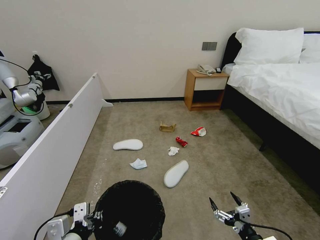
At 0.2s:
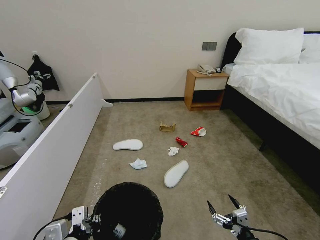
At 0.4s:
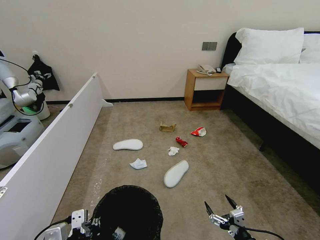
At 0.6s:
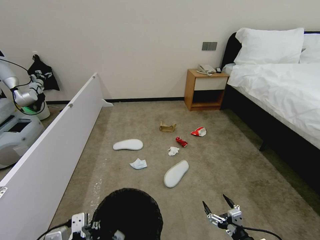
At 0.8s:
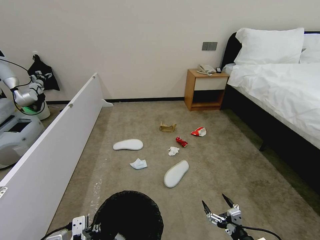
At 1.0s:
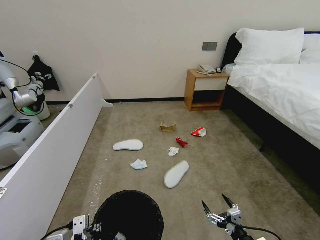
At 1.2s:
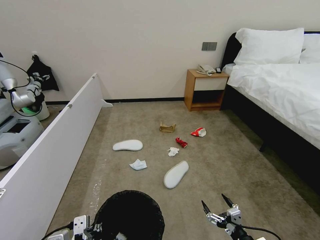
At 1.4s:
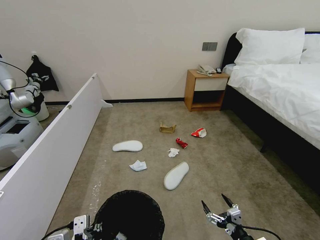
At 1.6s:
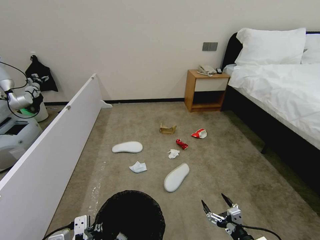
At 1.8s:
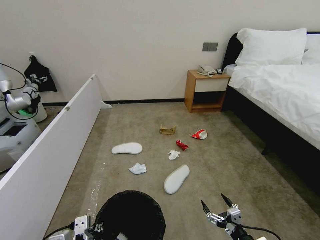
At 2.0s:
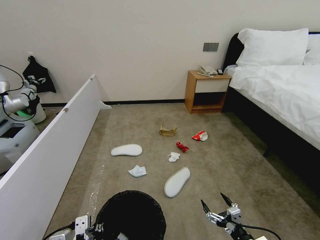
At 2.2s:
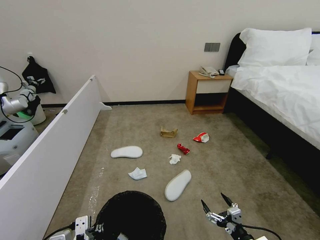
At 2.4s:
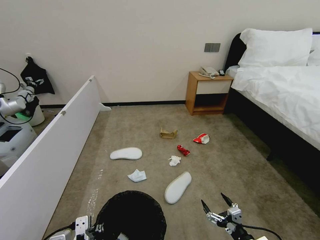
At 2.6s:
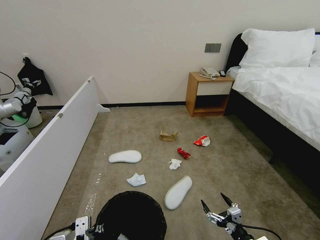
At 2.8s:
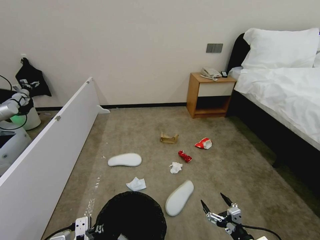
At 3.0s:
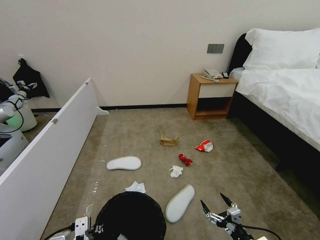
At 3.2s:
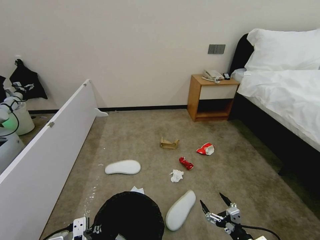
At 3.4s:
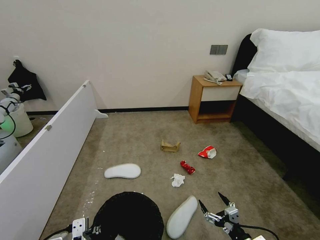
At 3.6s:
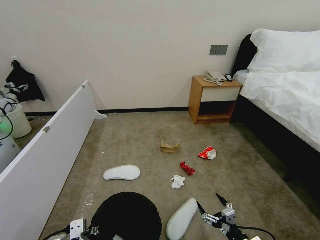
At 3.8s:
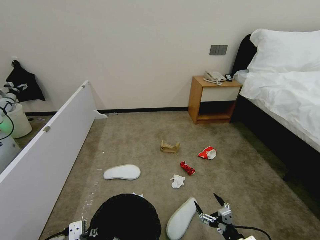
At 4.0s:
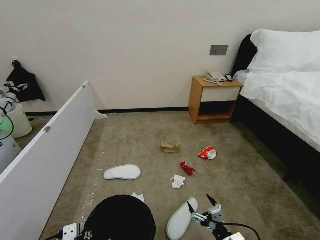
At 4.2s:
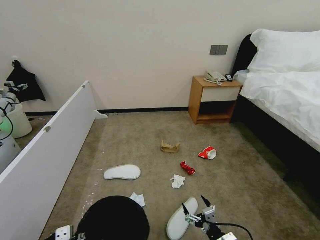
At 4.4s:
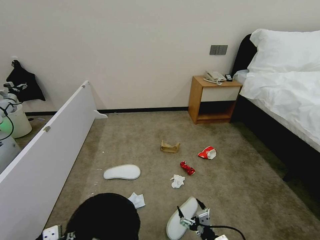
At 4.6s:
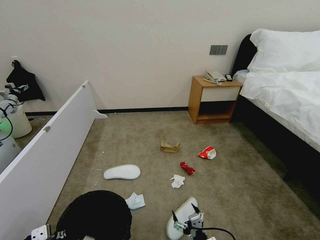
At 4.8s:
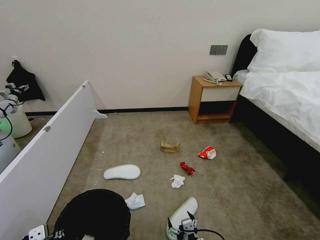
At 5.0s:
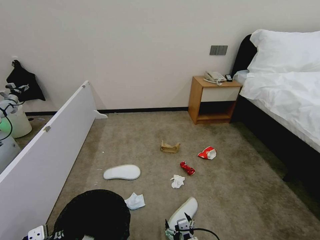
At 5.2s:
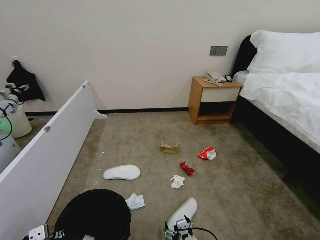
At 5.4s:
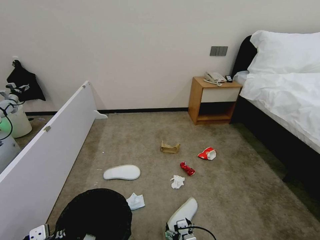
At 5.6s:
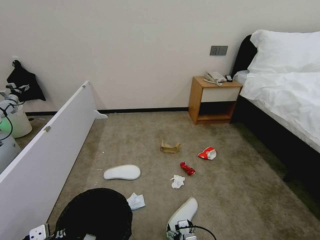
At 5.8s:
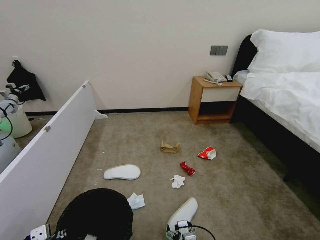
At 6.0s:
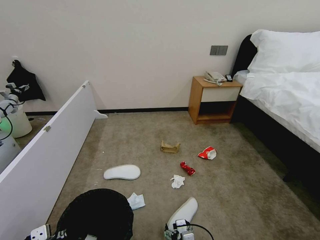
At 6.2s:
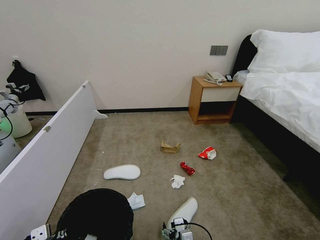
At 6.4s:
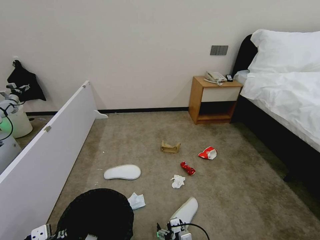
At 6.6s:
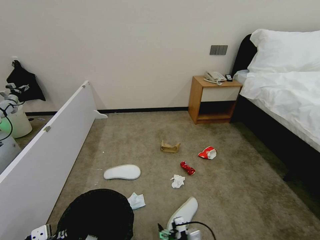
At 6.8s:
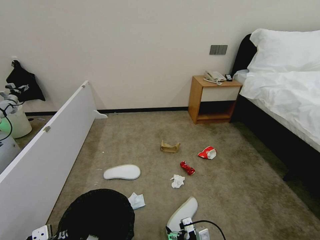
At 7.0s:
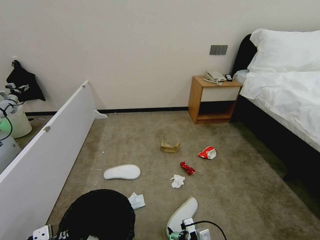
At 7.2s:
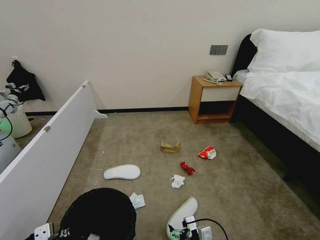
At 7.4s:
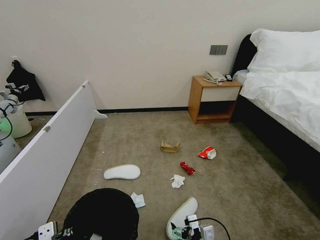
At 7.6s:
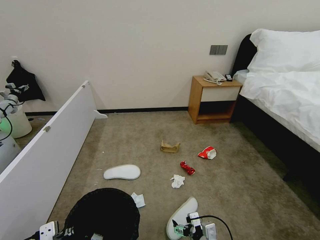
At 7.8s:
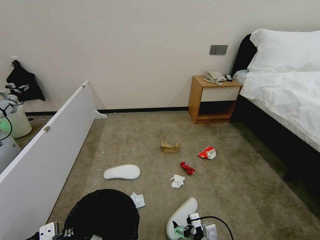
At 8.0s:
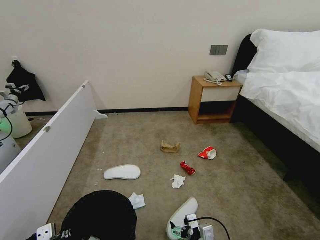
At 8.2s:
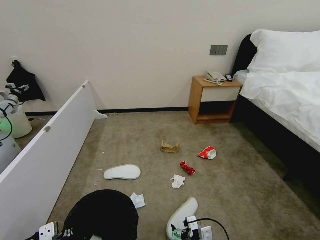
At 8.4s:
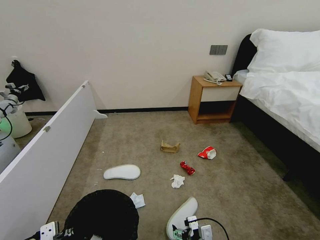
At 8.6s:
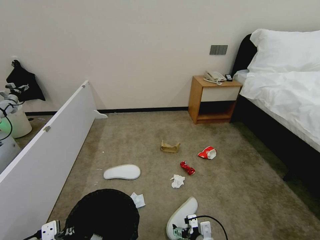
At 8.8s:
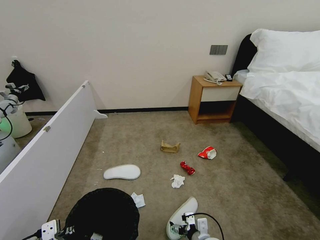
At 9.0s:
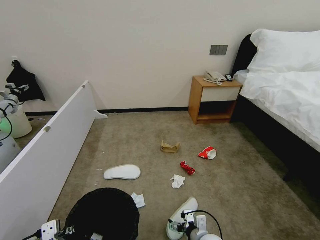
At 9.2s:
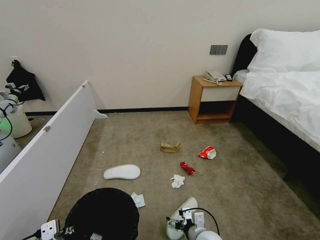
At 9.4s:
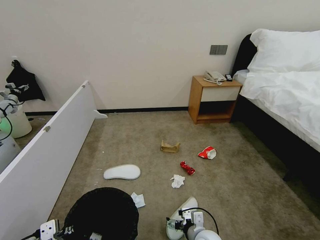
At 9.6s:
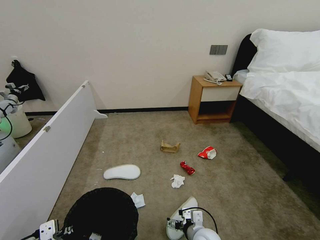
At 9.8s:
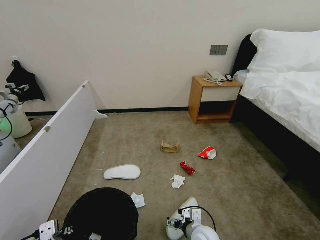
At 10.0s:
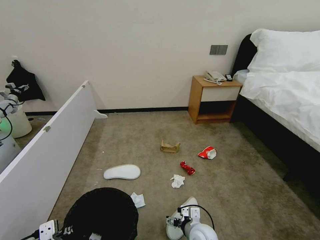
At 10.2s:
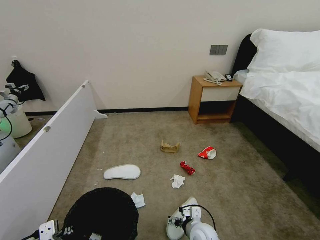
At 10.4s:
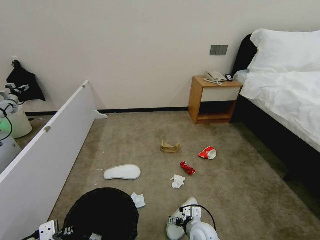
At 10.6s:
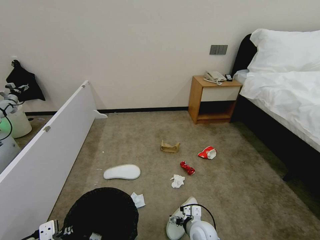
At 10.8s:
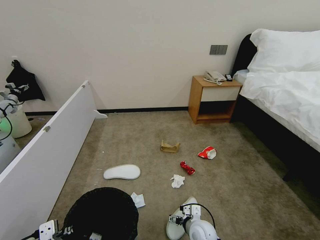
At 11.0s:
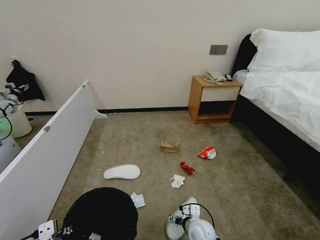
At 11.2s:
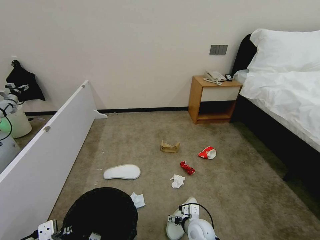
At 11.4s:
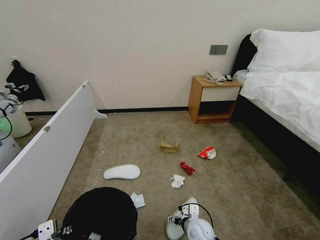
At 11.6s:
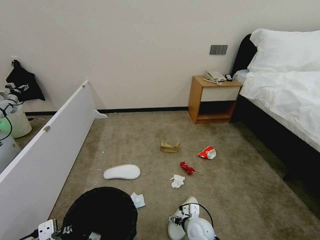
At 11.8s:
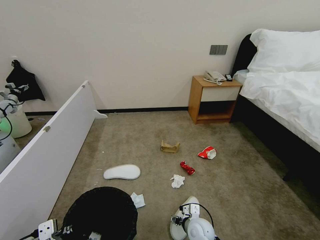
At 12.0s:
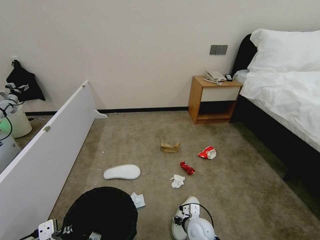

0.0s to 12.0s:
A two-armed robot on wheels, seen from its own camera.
Task of the whole recording: Pick up the trash bin, then pick up the garbage from the floor and place it into the trash bin.
0.0s to 1.6s: There are only small adjustments of the grippers.
1.6s to 3.0s: The two grippers keep their place.
3.0s to 4.4s: The right gripper moves to the left, some 10 cm.
4.4s to 6.0s: The right gripper travels to the left by some 10 cm.
6.0s to 7.6s: The right gripper goes approximately 10 cm to the right and upward.
7.6s to 9.0s: The right gripper changes place by roughly 5 cm.
9.0s to 10.4s: The grippers move only a little.
10.4s to 12.0s: The right gripper closes.

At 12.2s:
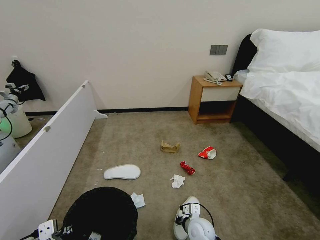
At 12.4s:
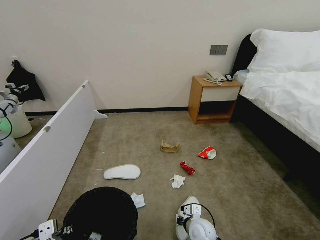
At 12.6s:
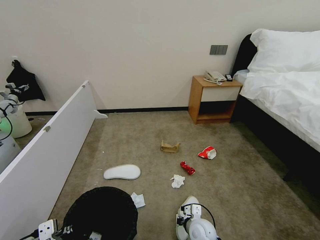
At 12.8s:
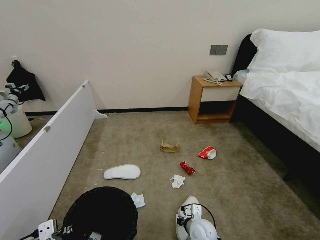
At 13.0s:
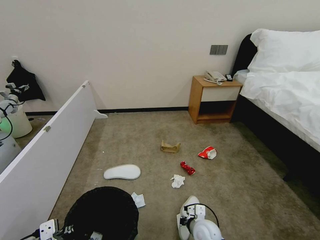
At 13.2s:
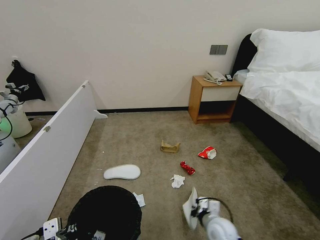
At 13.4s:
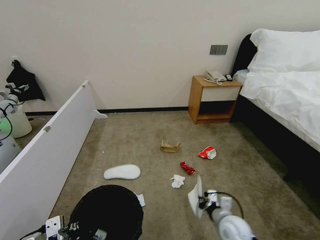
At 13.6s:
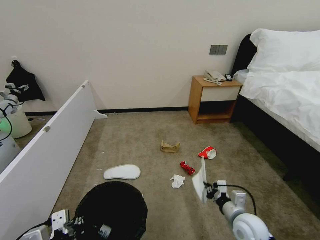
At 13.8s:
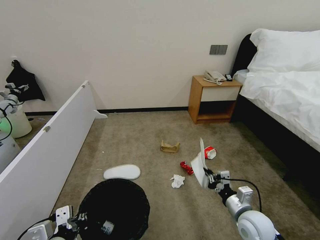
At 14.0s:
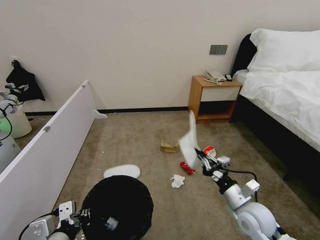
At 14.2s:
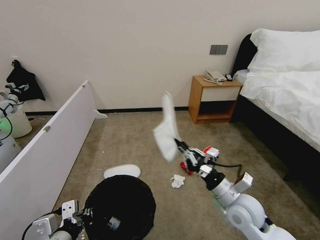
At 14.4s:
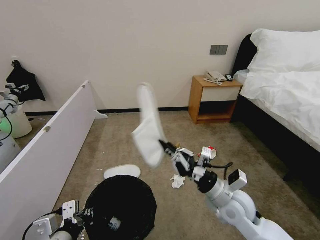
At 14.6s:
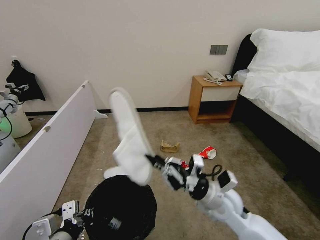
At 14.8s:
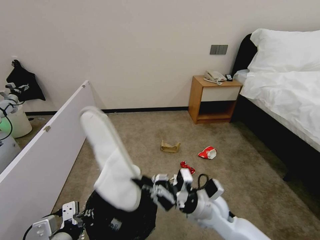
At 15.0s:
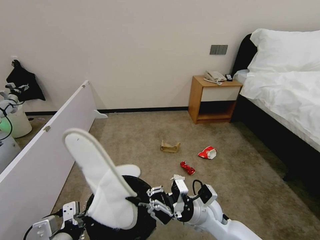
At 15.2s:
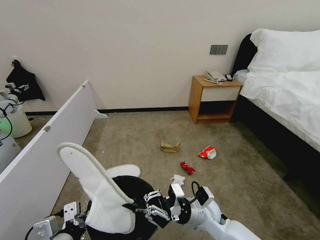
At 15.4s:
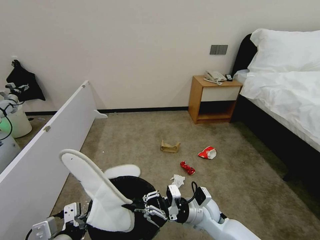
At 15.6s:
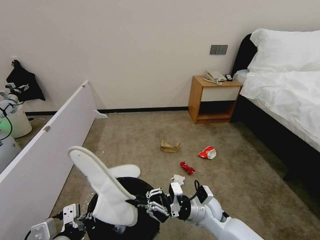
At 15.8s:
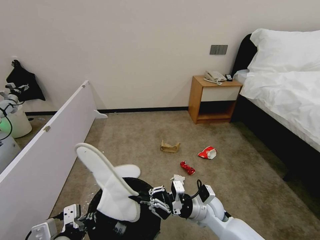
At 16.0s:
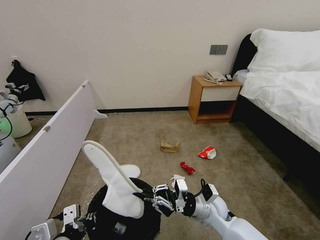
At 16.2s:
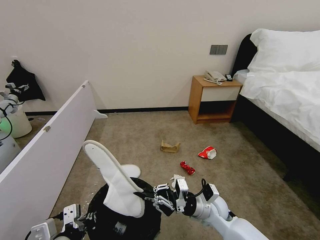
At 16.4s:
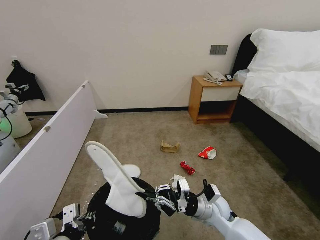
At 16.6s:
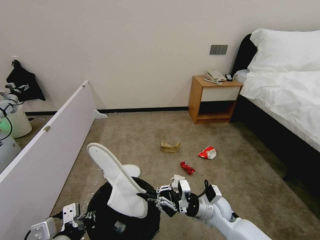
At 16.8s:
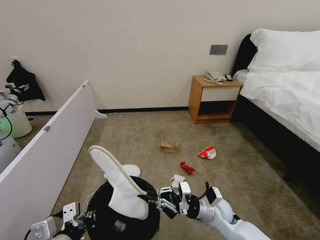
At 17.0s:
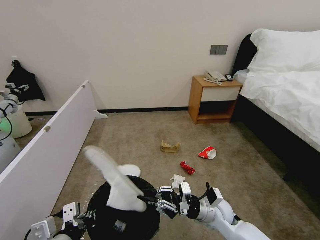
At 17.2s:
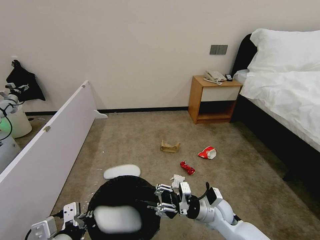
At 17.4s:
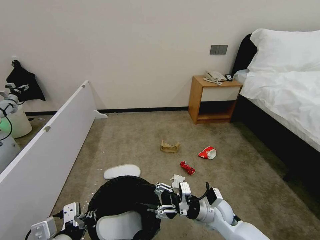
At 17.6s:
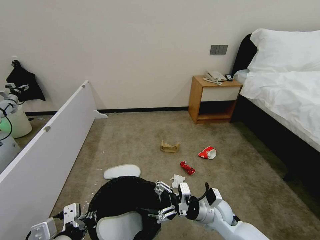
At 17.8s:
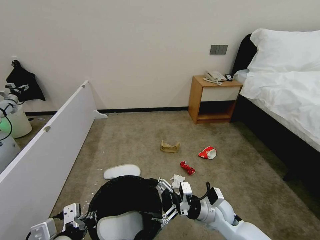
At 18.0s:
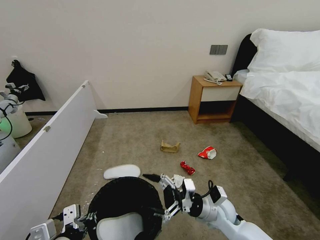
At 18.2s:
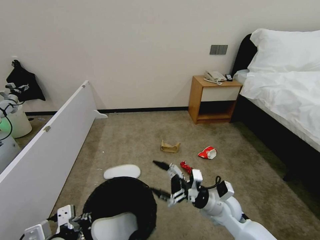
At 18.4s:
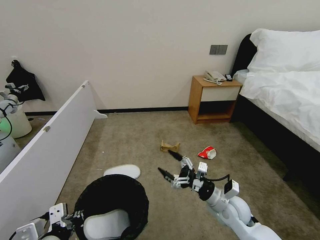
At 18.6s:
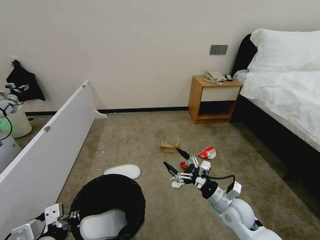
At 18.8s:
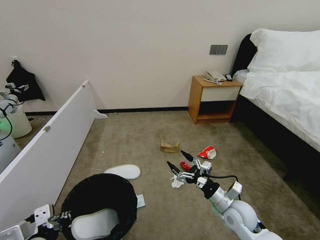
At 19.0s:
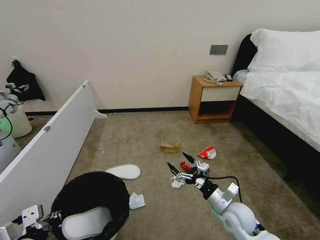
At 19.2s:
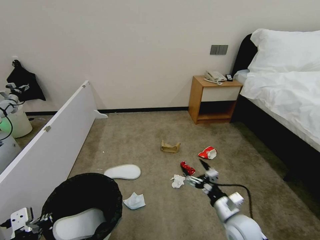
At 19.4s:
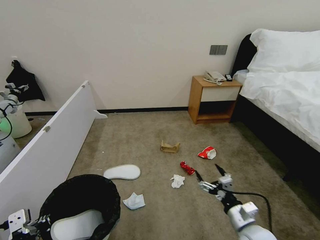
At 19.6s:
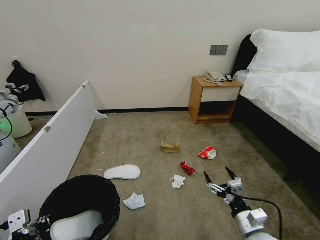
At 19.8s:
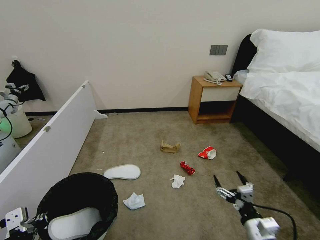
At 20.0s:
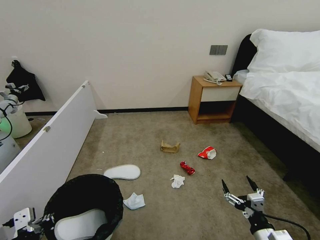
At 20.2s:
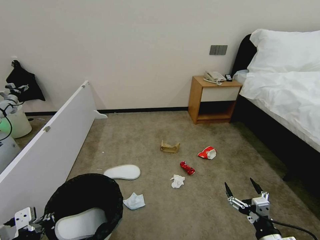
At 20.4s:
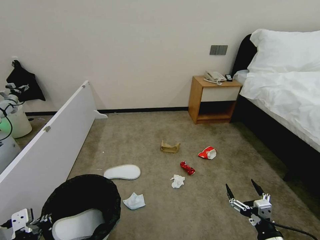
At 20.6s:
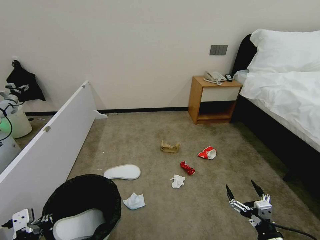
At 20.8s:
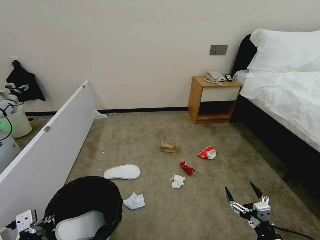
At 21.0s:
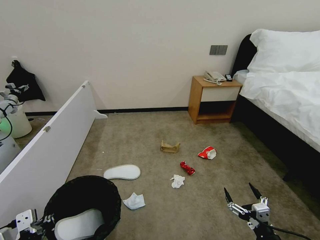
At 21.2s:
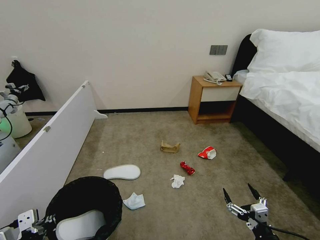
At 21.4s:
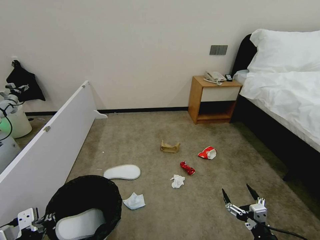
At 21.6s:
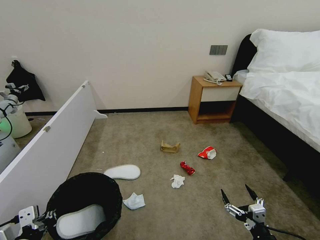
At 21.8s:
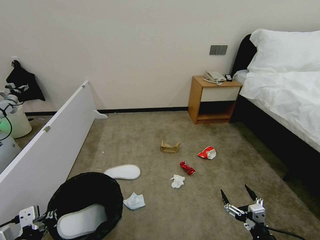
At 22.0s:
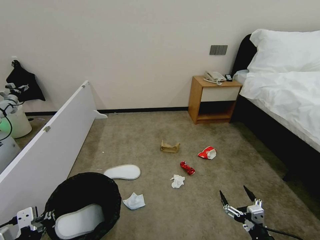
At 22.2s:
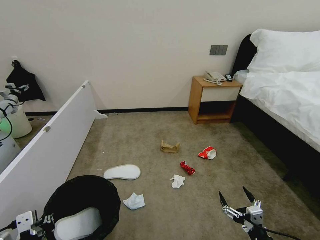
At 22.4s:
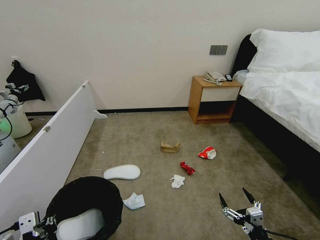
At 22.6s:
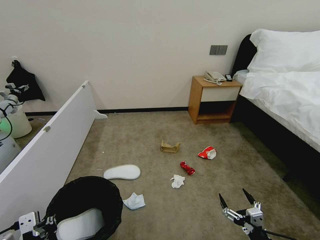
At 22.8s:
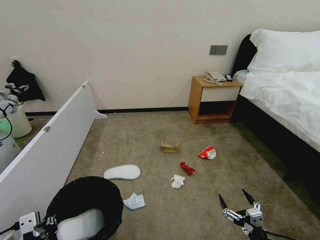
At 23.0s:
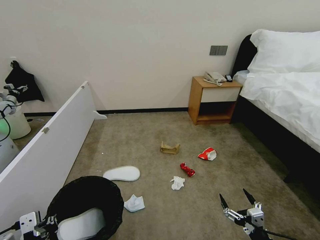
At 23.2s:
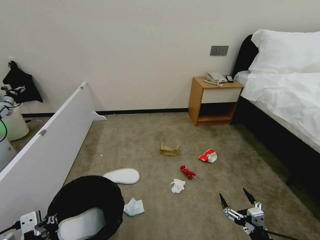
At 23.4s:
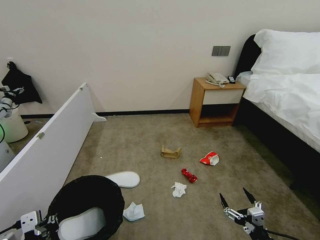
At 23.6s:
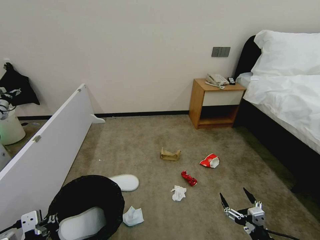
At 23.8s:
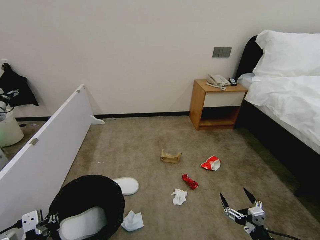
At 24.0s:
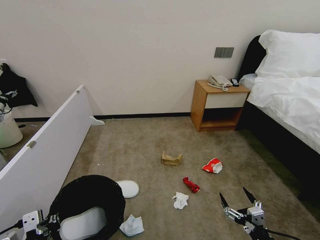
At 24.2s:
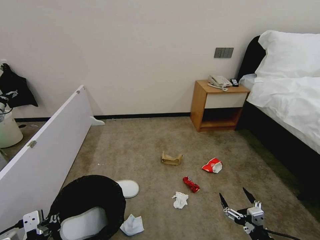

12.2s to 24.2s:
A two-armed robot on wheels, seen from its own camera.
Task of the whole recording: Pick up the trash bin, then pick up the garbage from the floor and place it into the trash bin.
12.2s to 13.8s: The right gripper goes approximately 20 cm to the right and upward.
13.8s to 15.2s: The right gripper heads to the left, covering roughly 15 cm.
15.2s to 16.6s: The right gripper moves roughly 5 cm.
16.6s to 18.2s: The right gripper opens.
18.2s to 19.8s: The left gripper is displaced to the left by approximately 10 cm. The right gripper shifts about 15 cm backward and to the right.
19.8s to 21.2s: The right gripper heads backward, covering about 5 cm.
21.2s to 22.6s: The grippers make only small movements.
22.6s to 24.2s: Both grippers stay about where they are.
